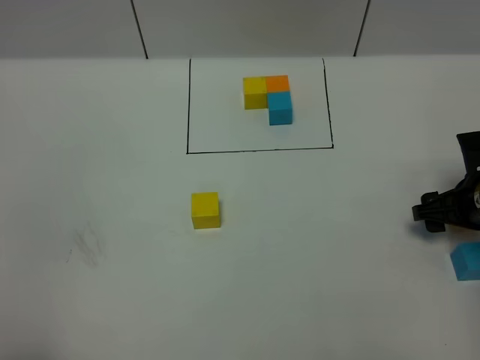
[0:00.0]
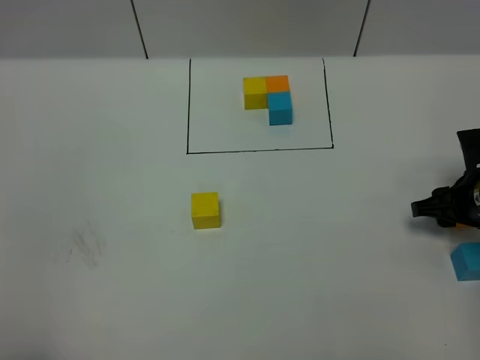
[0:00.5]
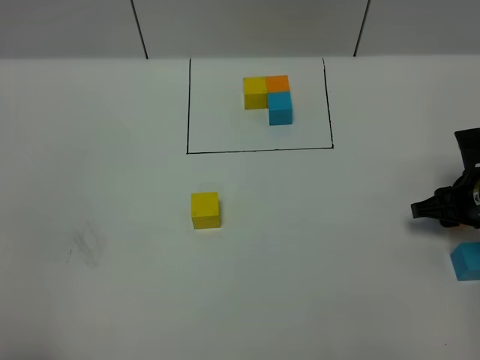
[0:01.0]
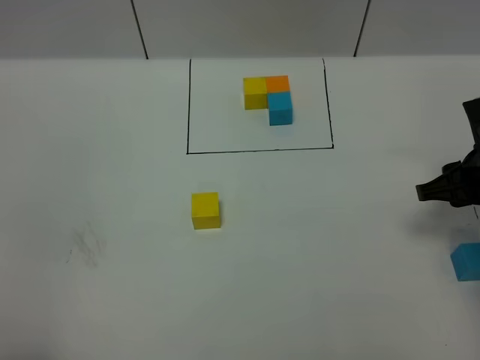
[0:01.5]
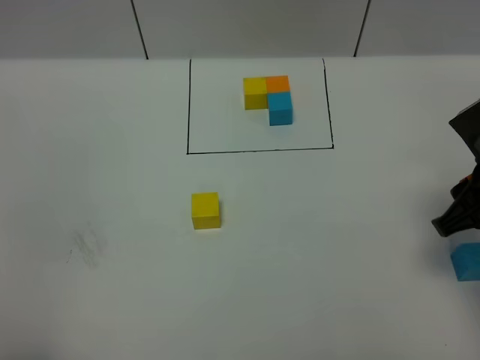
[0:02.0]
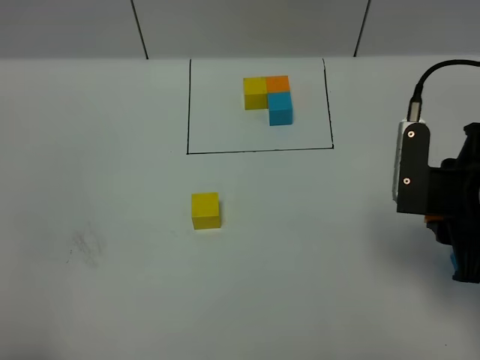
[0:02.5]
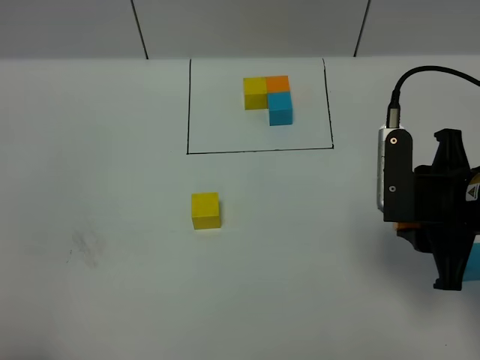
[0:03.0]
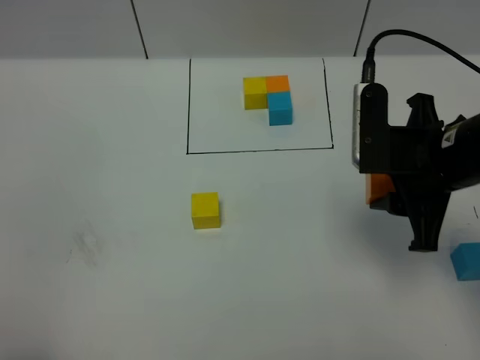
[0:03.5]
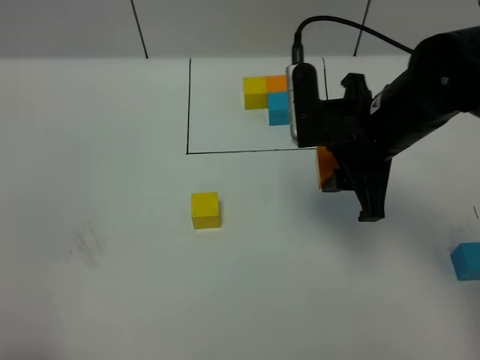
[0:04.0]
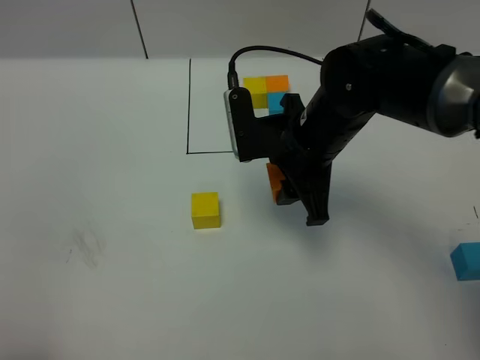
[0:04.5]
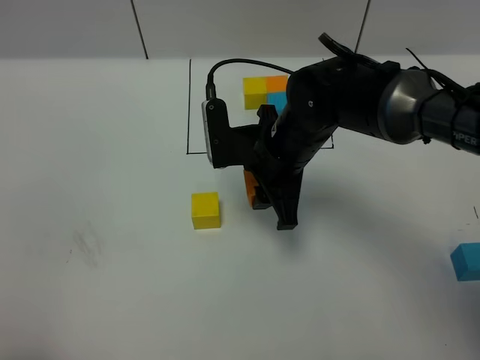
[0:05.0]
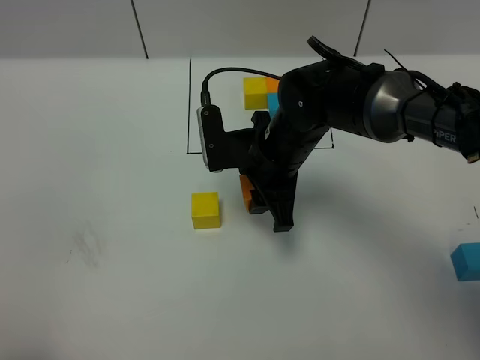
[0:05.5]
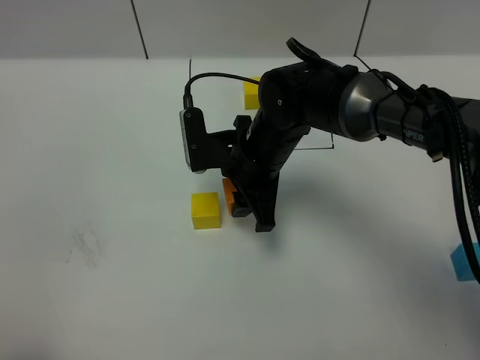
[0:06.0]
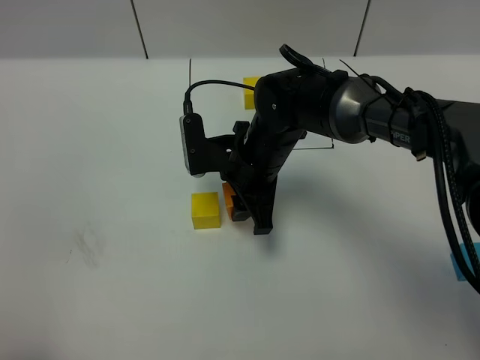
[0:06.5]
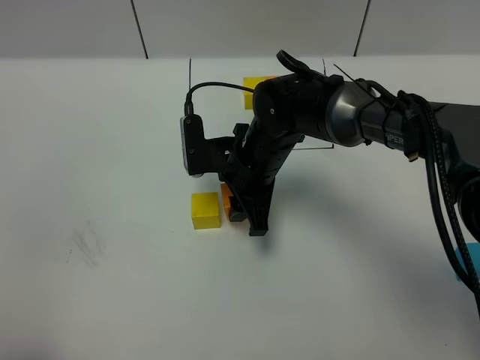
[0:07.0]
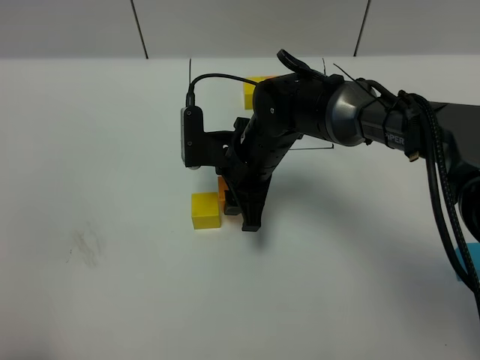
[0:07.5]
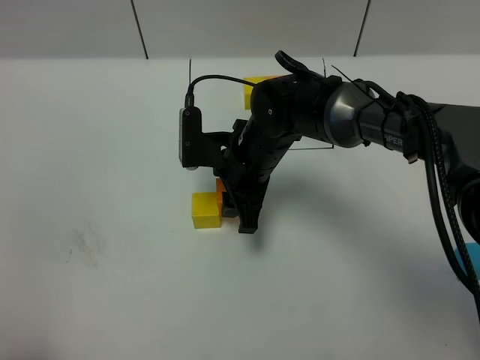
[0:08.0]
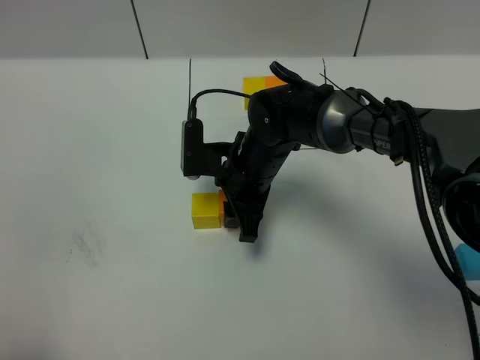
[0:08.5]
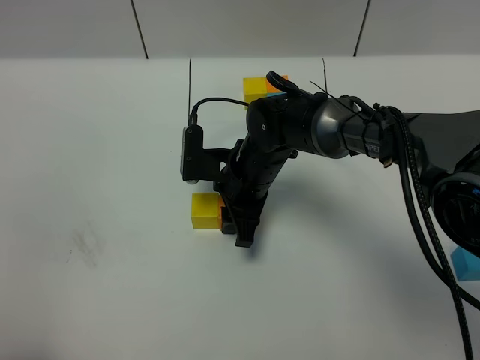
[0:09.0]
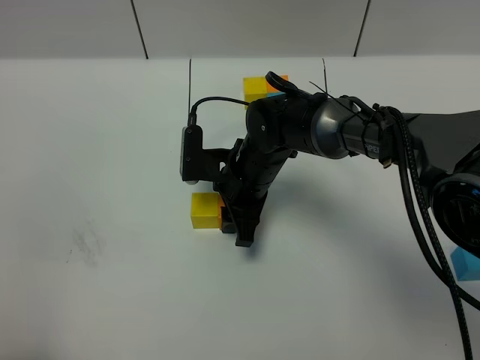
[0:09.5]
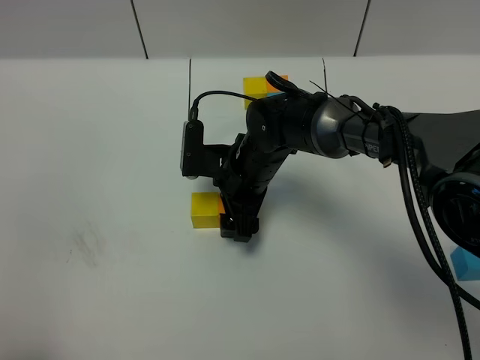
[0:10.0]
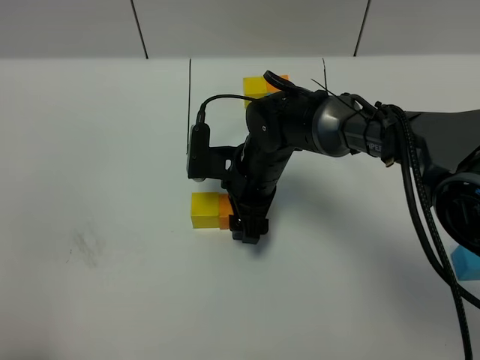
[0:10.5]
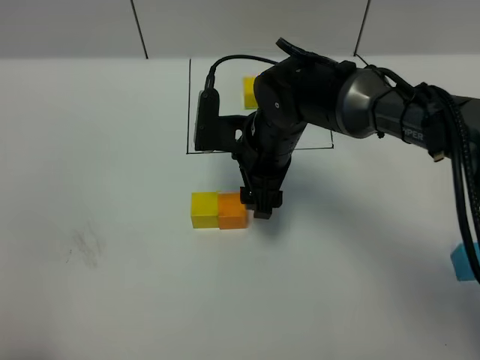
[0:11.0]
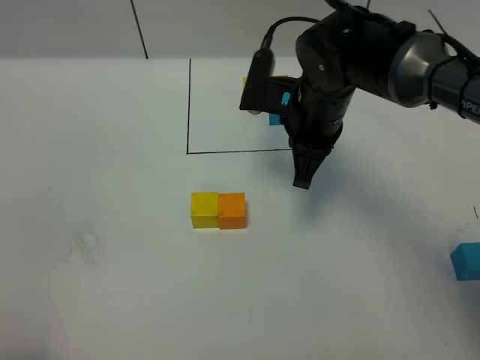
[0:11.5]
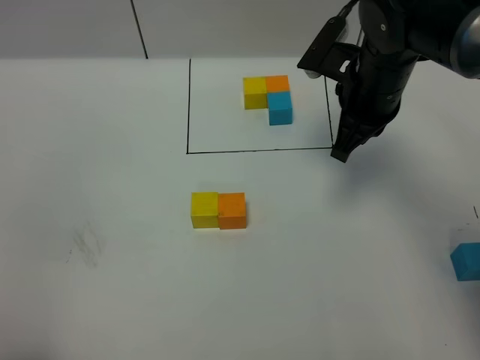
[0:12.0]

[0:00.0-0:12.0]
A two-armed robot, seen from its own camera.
Task of the whole recording: According to the building block template in front, assemble the scattered blocks together.
Step, 0:00.0 to 0:10.5: Put the orange cube on the right of the yellow cube.
0:00.0 to 0:02.0: The right gripper moves upward and backward, some 15 cm, and closes up.
0:02.0 to 0:04.0: The right gripper moves to the left and forward, approximately 15 cm.
0:04.0 to 0:06.0: The right gripper is displaced to the left and downward by approximately 15 cm.
0:06.0 to 0:08.0: The grippers make only small movements.
0:08.0 to 0:10.0: The right gripper opens up.
0:10.0 to 0:12.0: The right gripper heads to the right and upward, covering approximately 20 cm, and closes.

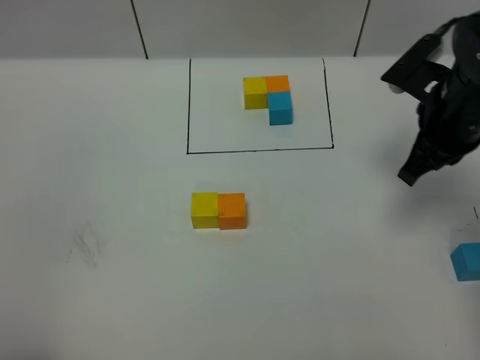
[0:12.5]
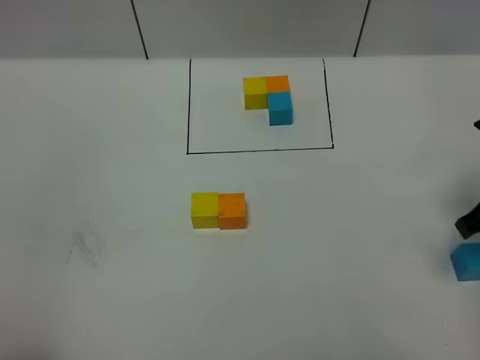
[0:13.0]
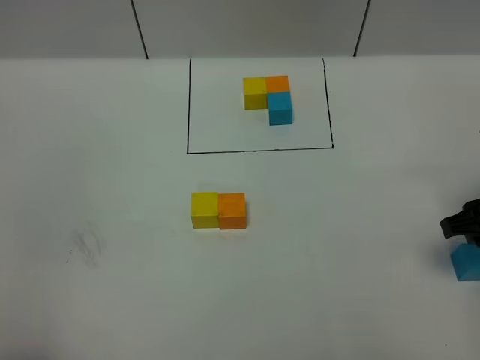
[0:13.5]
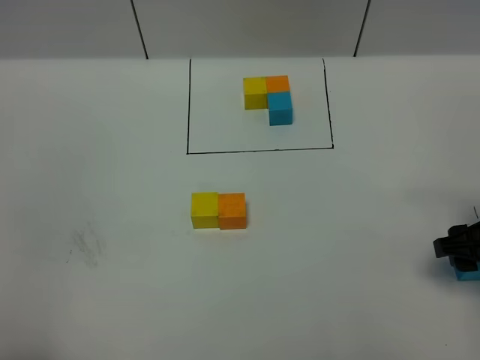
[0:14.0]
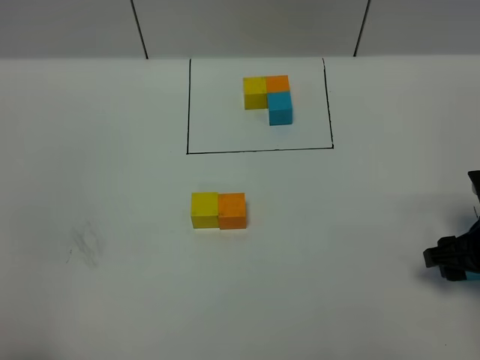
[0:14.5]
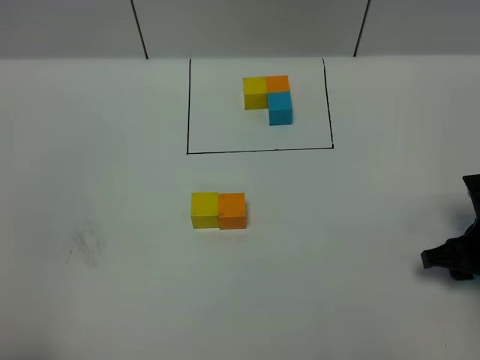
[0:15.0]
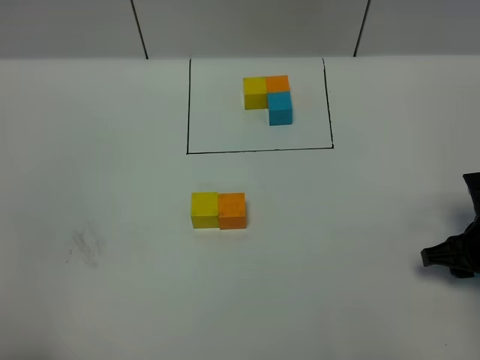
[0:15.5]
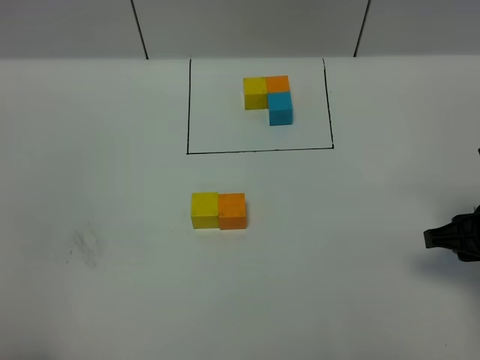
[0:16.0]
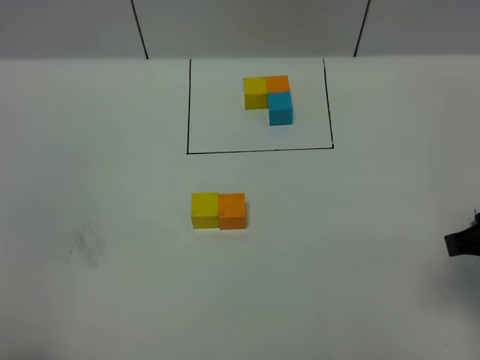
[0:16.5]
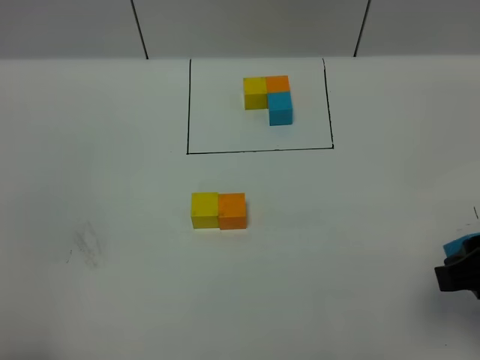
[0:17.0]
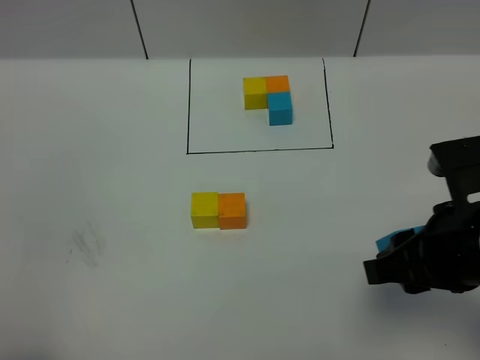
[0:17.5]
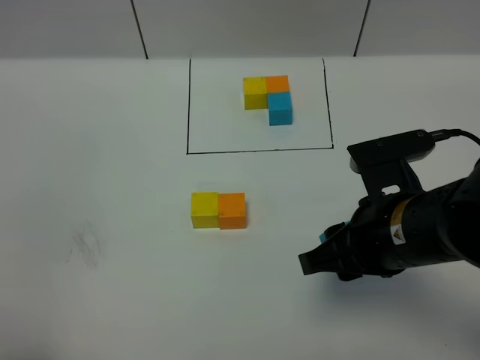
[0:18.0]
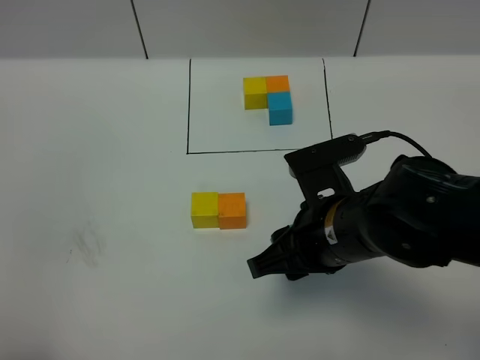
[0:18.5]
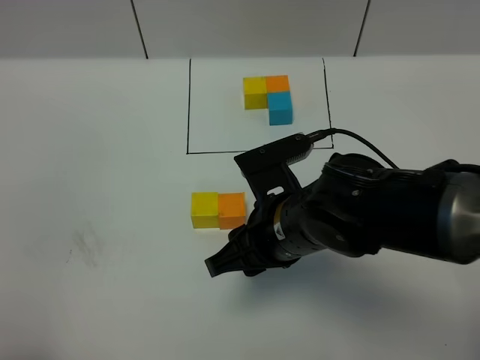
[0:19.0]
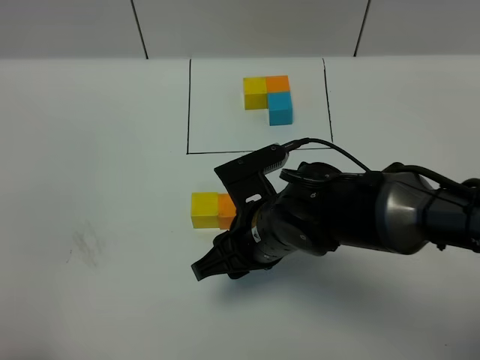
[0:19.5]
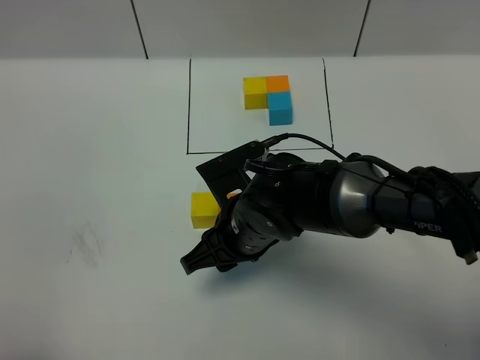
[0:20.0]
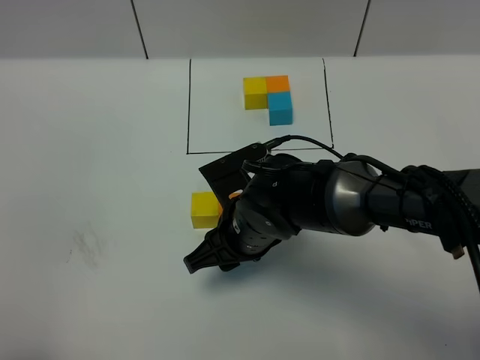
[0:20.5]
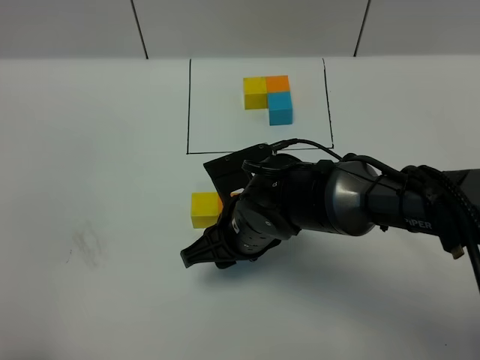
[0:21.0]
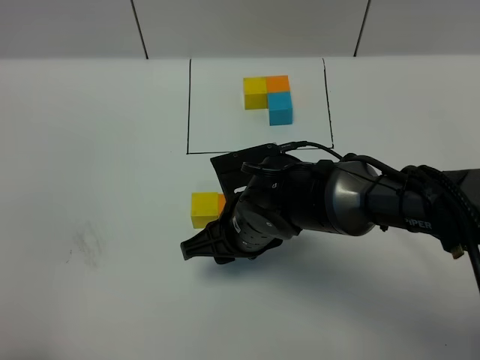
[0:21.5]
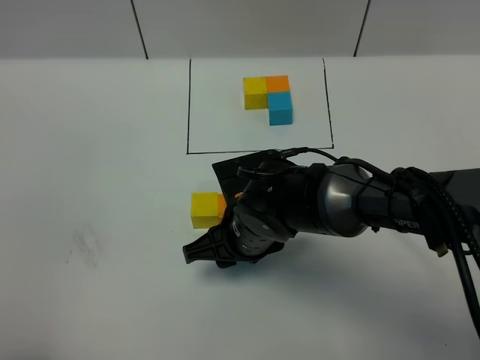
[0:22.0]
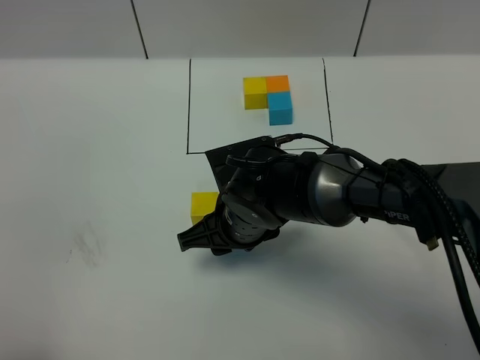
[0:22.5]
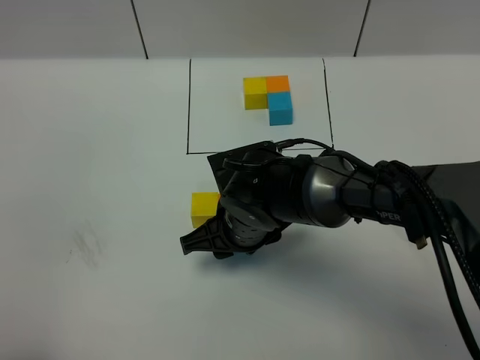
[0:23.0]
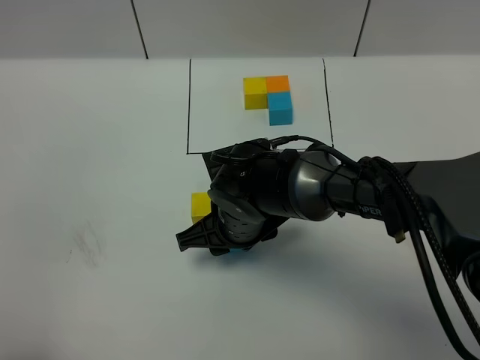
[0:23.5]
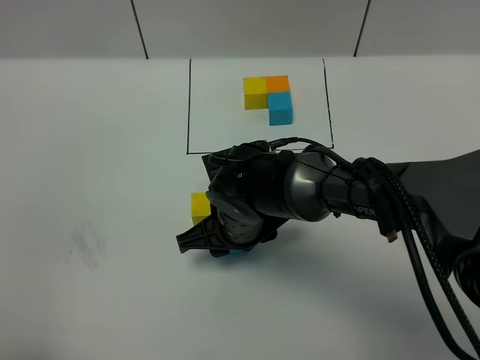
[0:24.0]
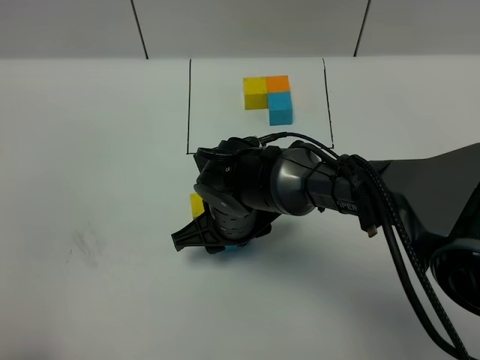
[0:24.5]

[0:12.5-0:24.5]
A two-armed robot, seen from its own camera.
Task of the whole recording: According to the building block template in front, assemble the scattered blocks together.
0:12.5 to 0:14.5: The right gripper moves downward, backward and to the right, roughly 15 cm, and opens its fingers.
0:14.5 to 0:16.5: The right gripper travels upward and backward by some 15 cm.
0:16.5 to 0:18.5: The right gripper heads to the left, covering about 15 cm.
0:18.5 to 0:20.5: The right gripper is displaced to the left, downward and forward by some 10 cm.
0:20.5 to 0:24.5: There are only small adjustments of the grippers.

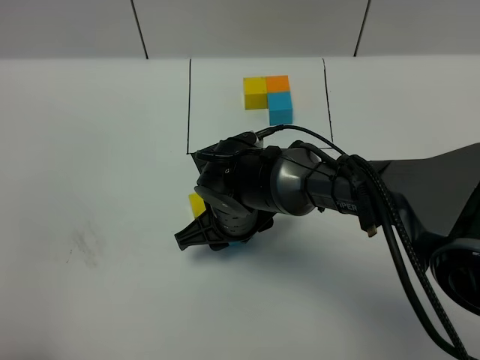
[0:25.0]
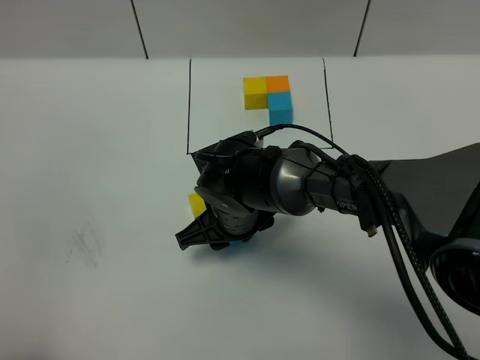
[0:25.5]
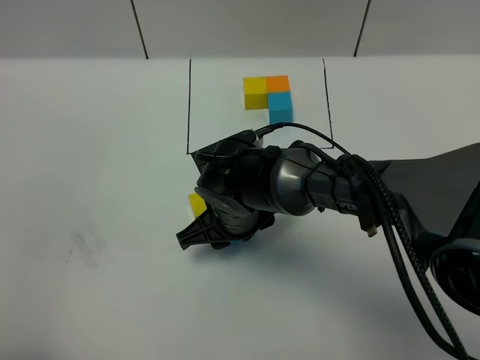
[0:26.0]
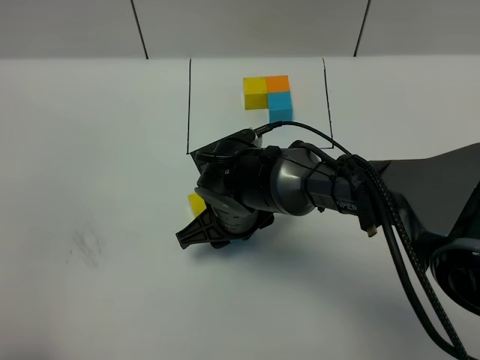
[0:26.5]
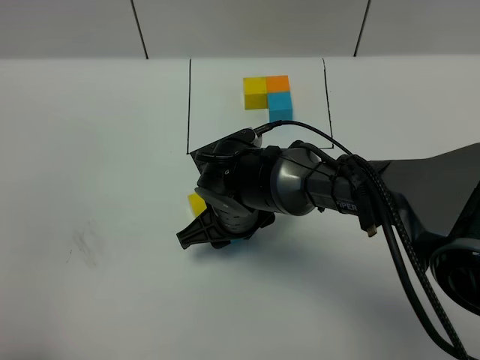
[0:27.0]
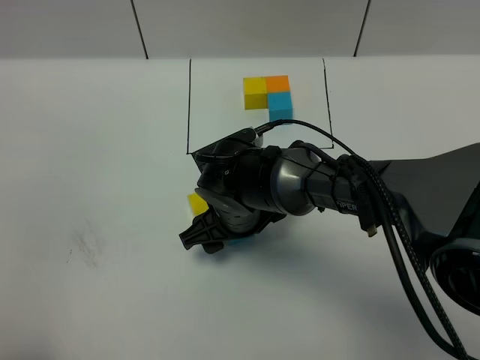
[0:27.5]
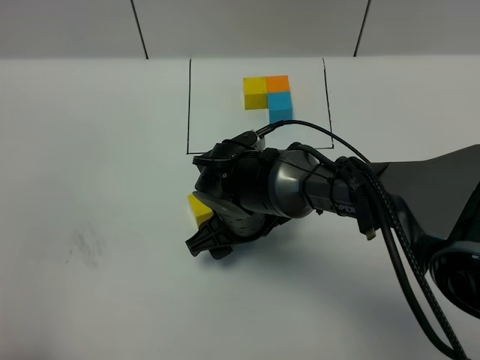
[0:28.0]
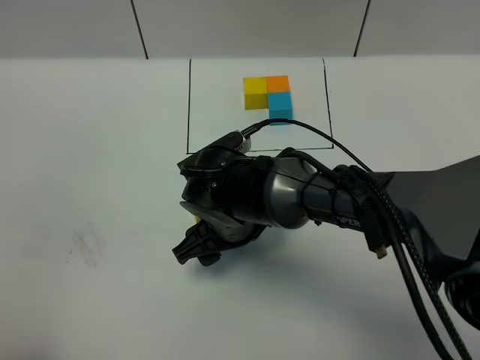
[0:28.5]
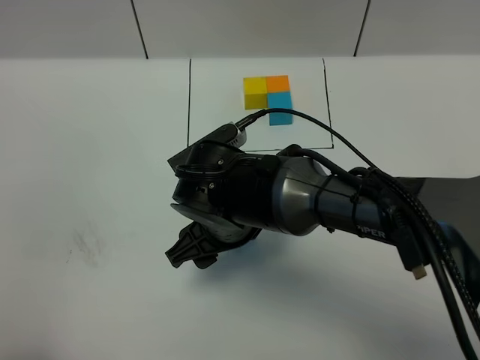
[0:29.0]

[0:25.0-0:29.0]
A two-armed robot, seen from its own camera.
Task of the whole recording: According to the building block template in front, assemble the scattered blocks together.
Step, 0:25.0 to 0:28.5: Put the blue cube in the front of the orange cube.
0:25.0 to 0:27.0: Both grippers stay about where they are.
0:27.0 to 0:29.0: The right gripper goes about 5 cm upward.
